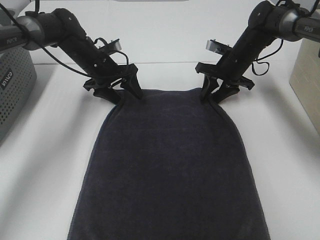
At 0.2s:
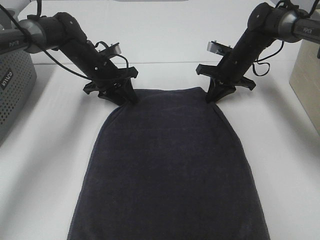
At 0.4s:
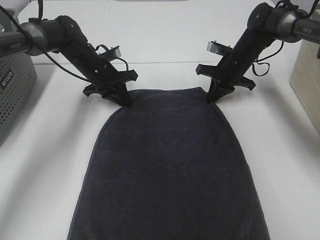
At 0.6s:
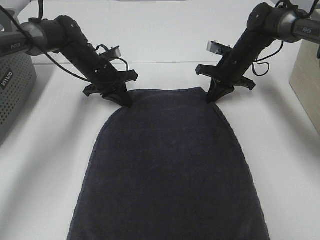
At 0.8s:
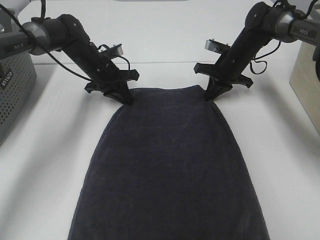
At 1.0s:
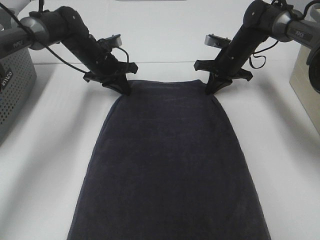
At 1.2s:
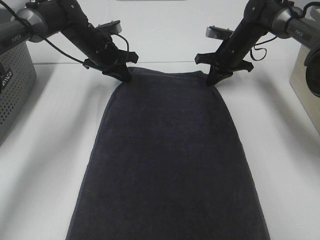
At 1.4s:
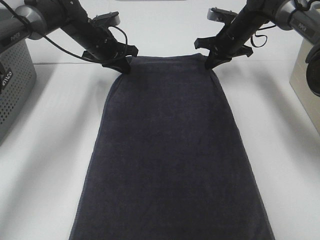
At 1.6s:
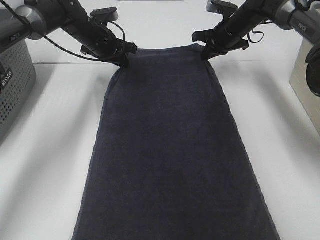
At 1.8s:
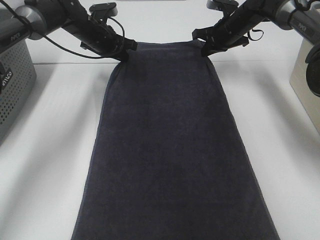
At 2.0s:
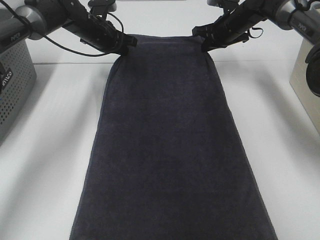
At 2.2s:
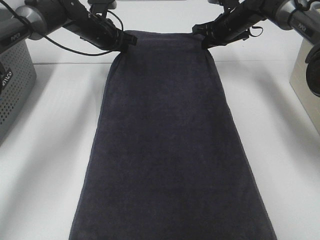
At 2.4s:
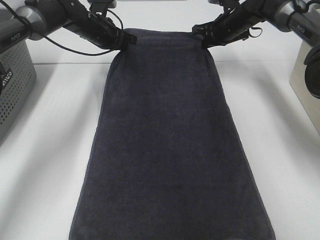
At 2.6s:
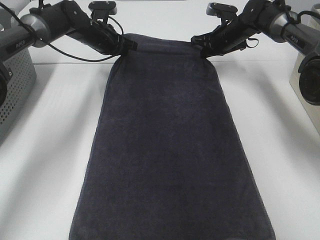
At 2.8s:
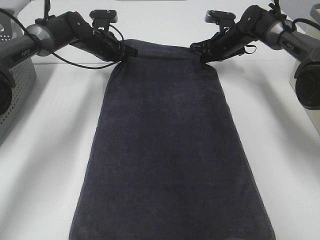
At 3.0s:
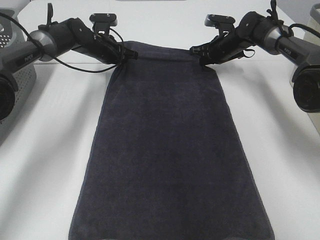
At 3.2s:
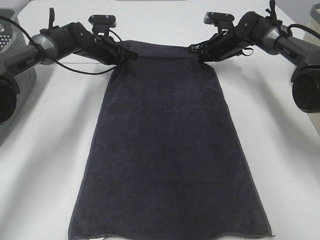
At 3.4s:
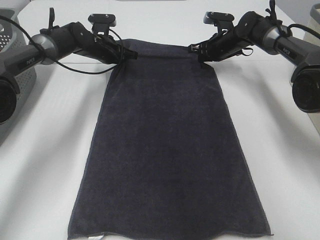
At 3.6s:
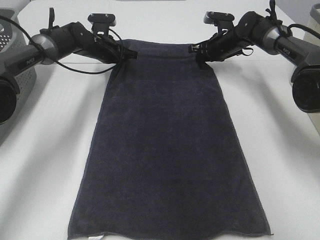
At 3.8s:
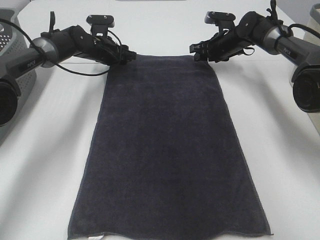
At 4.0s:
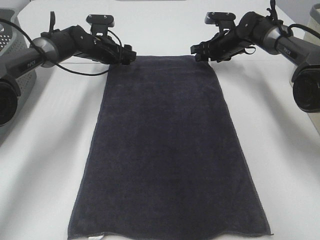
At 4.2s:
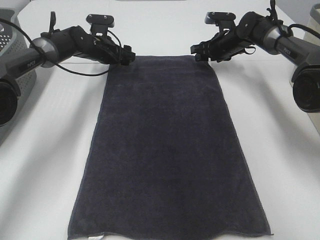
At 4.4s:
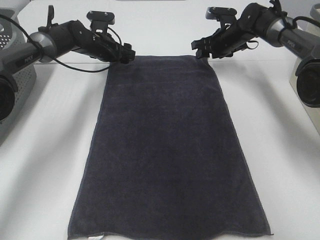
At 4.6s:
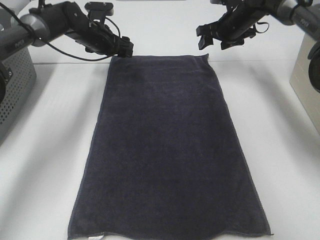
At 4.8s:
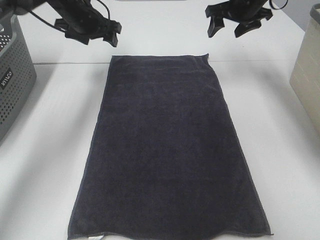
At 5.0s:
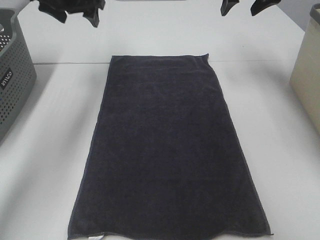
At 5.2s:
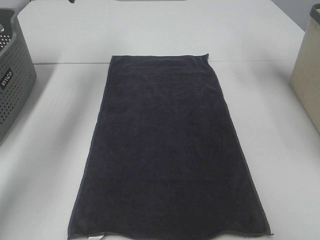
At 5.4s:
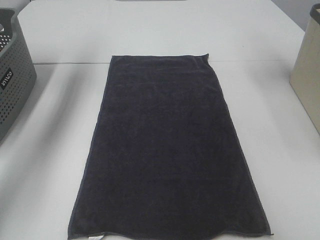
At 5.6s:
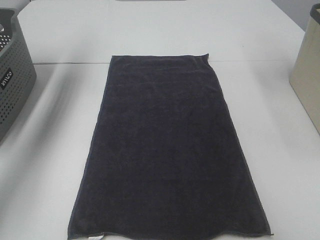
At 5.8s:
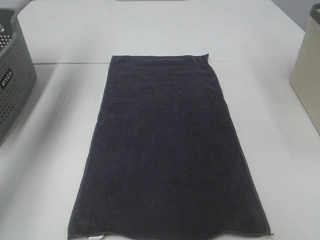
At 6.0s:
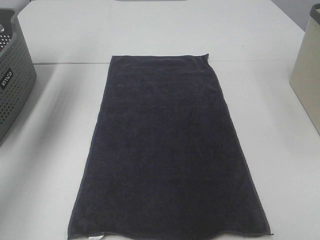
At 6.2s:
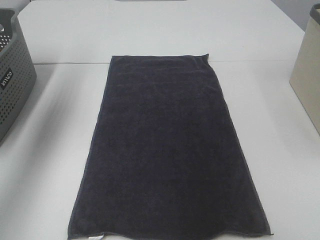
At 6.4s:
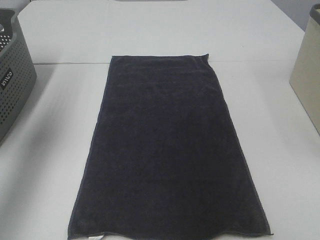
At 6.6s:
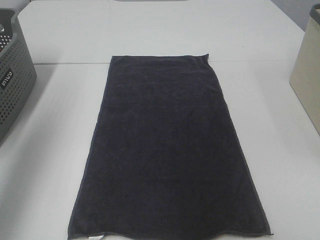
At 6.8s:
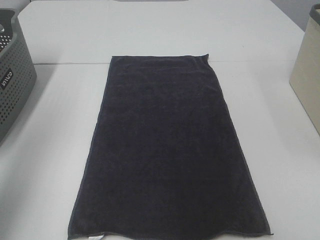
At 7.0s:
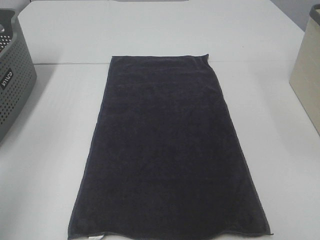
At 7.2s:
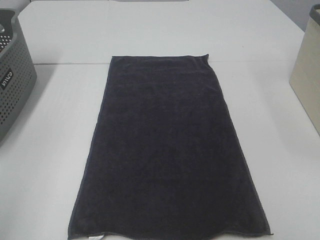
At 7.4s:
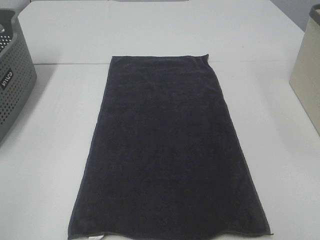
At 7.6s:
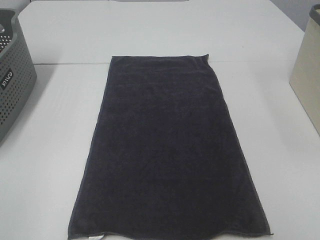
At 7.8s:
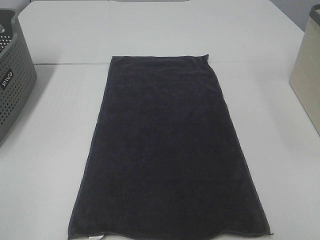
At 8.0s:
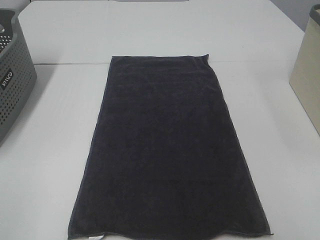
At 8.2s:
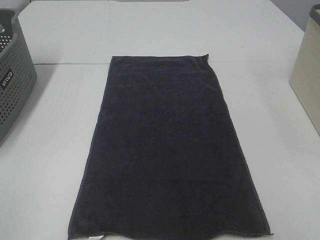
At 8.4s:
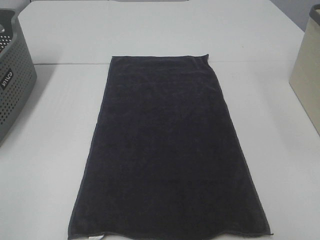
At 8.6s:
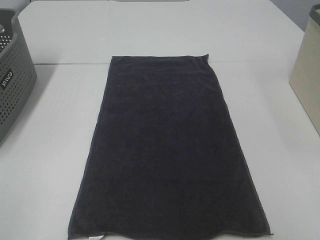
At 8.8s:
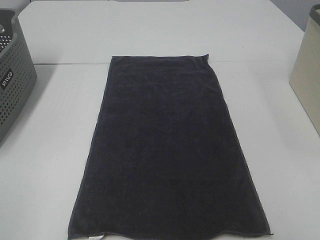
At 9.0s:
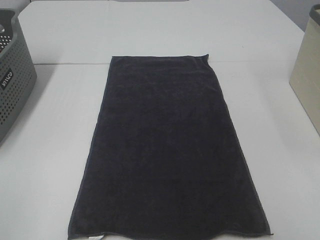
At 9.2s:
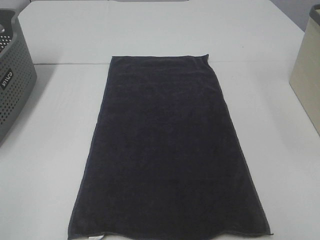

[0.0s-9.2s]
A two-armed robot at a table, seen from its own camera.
Task of the whole recording: Remove the towel and place it.
0.0s to 1.6s: The left gripper ends up approximately 5 cm from where it was, and closes its fingers. Meanwhile the right gripper goes roughly 10 cm upward and forward, and closes its fingers.
1.6s to 3.0s: The left gripper moves roughly 5 cm. The right gripper heads downward, covering about 5 cm.
3.0s to 4.6s: The left gripper opens its fingers, while the right gripper travels upward by approximately 5 cm, and opens up.
4.6s to 6.2s: The right gripper moves backward and upward, approximately 40 cm. Meanwhile the left gripper heads upward, backward and to the left, covering some 35 cm.
6.2s to 7.6s: The left gripper travels backward by approximately 40 cm.

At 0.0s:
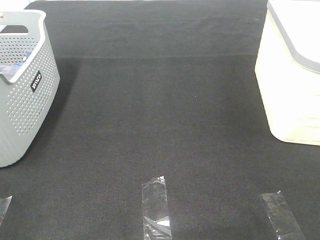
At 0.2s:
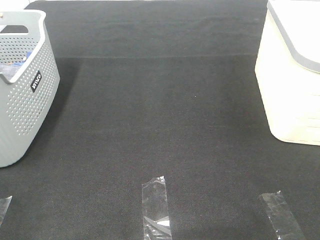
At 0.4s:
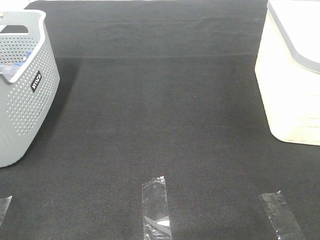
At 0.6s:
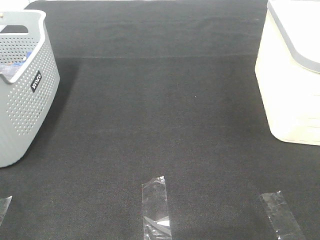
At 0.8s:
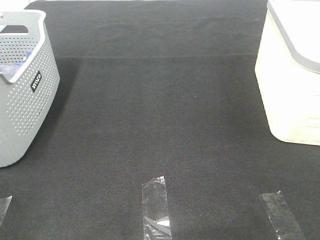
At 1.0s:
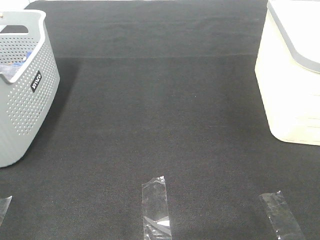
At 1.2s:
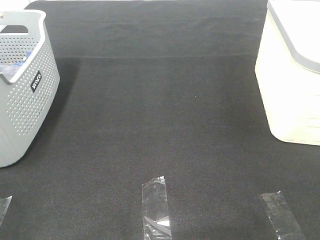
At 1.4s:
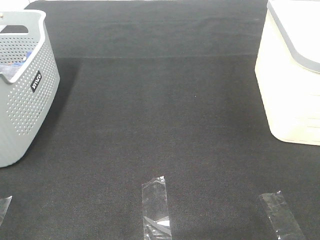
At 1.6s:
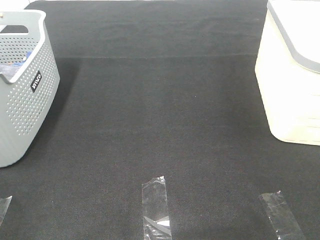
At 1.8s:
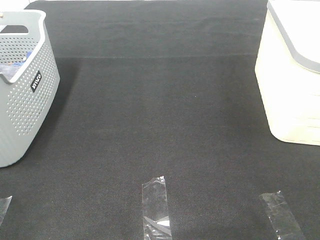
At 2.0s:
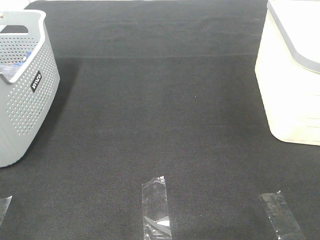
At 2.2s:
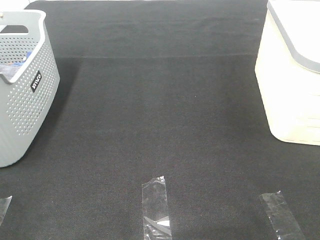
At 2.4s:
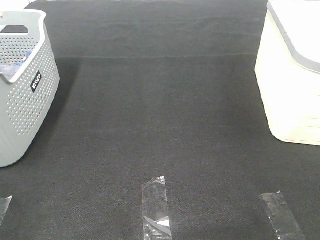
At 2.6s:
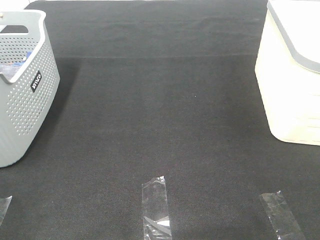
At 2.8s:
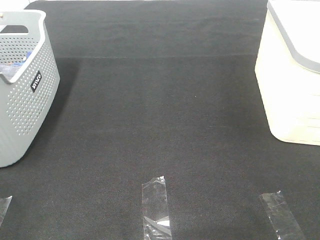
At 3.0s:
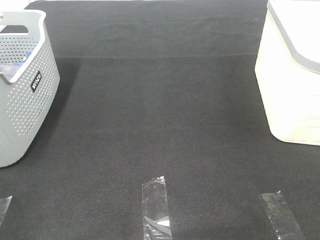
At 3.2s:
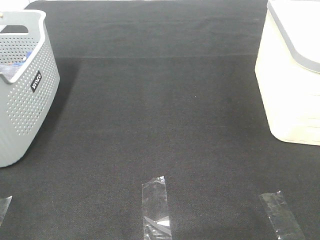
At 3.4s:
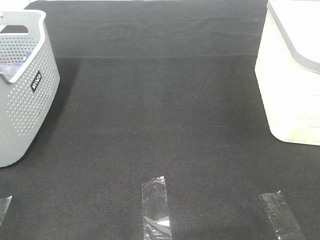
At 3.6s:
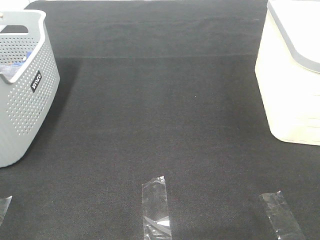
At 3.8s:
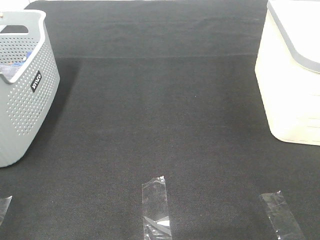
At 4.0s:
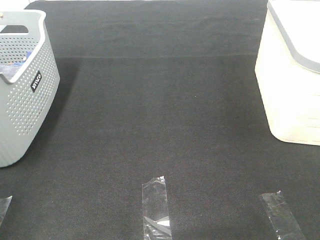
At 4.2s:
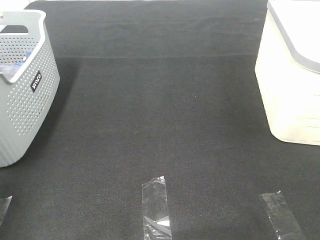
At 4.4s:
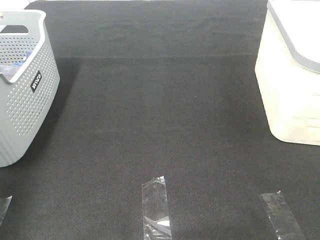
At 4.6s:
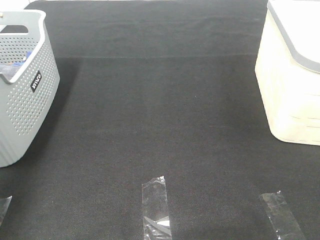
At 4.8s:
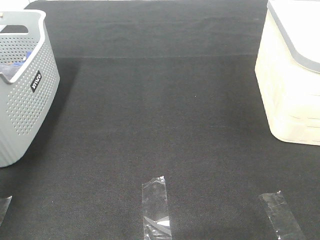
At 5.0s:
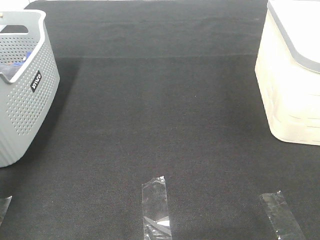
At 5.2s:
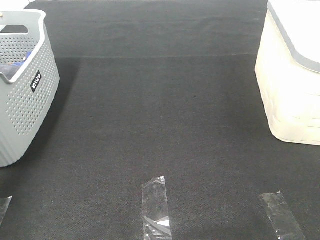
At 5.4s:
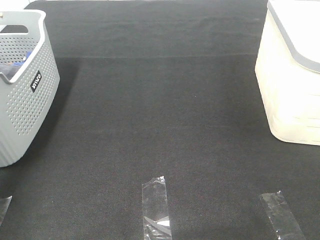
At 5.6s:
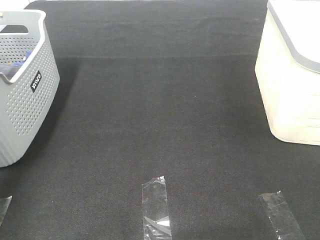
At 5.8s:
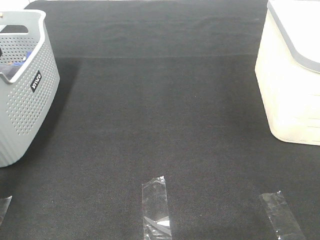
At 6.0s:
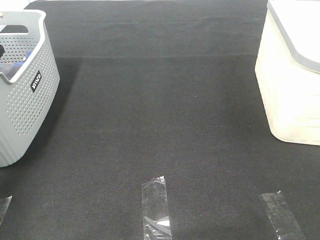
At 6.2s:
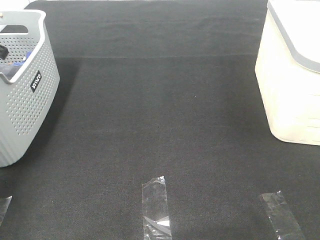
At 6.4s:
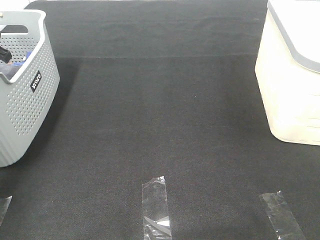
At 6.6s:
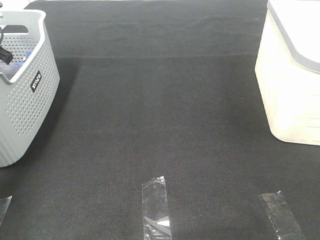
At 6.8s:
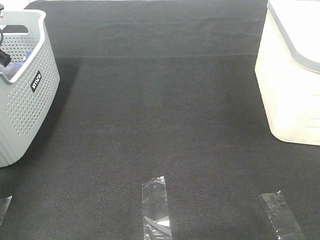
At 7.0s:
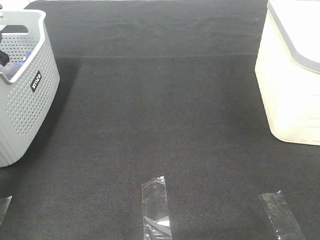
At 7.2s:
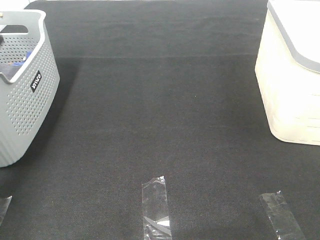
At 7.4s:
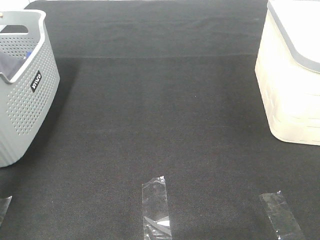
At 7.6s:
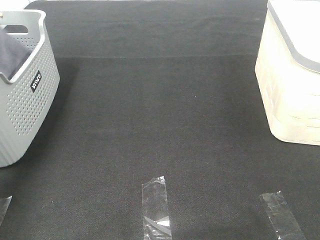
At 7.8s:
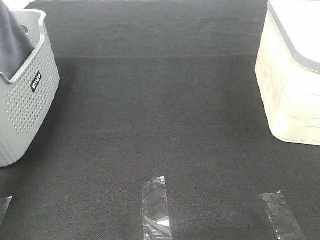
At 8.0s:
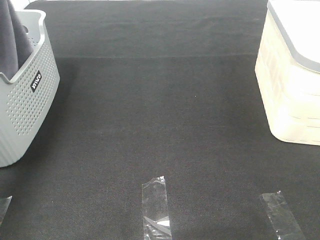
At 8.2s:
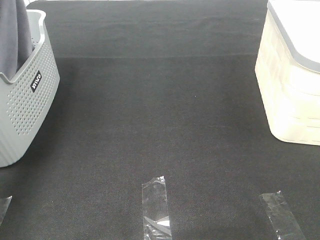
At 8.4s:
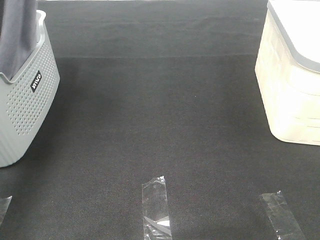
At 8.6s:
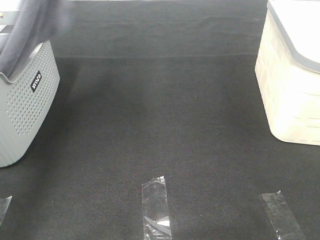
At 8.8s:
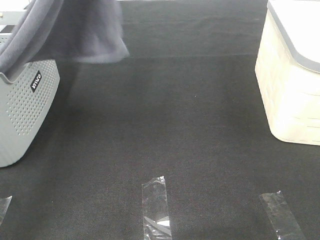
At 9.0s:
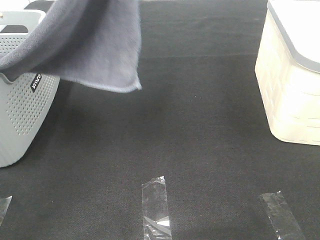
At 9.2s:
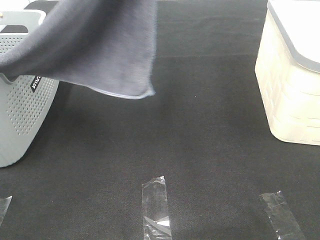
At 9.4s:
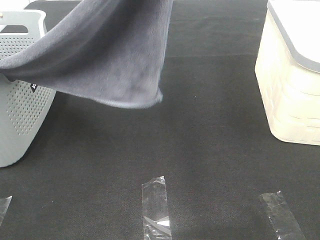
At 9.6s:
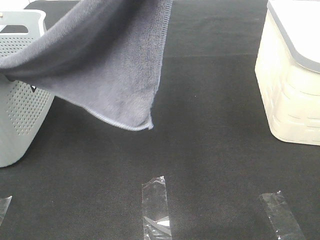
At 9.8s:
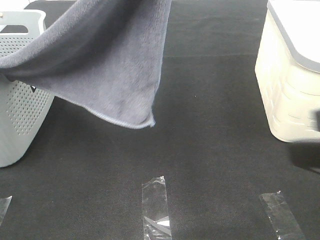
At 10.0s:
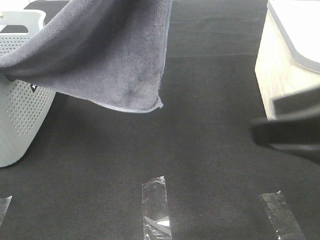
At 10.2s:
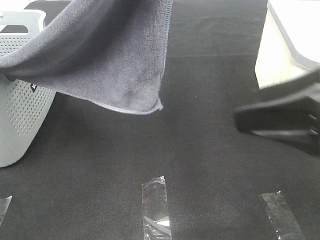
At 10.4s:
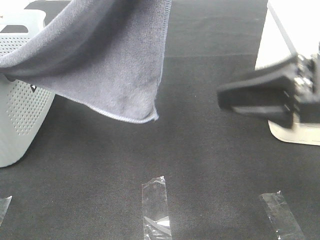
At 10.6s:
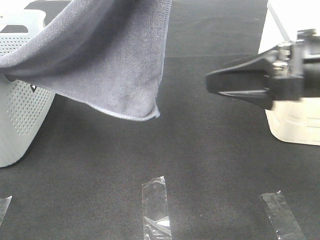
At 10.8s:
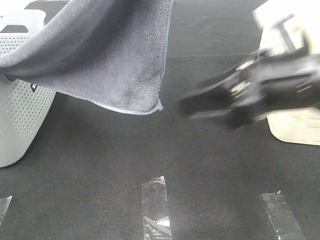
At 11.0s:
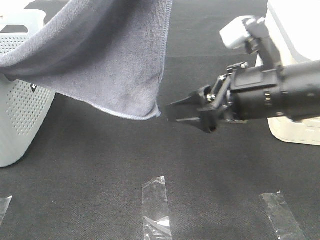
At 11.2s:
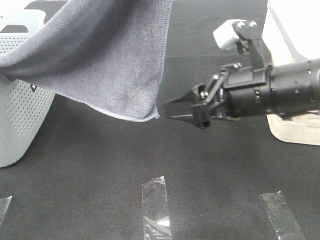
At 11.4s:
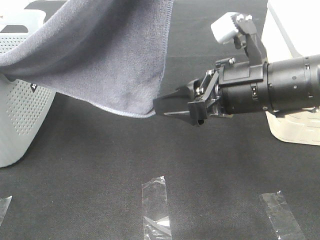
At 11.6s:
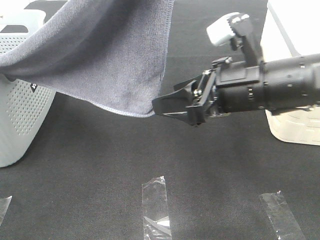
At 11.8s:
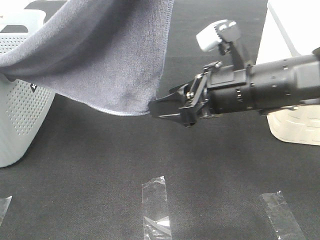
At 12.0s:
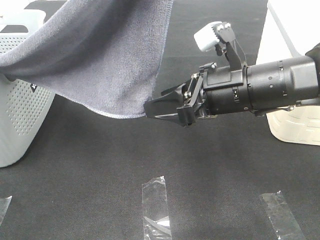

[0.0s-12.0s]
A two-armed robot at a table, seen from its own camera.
Task of the whole recording: Remove the towel and place it.
0.0s to 3.0s: Neither gripper changes place.
3.0s to 4.4s: The left gripper travels forward and upward by some 20 cm.
6.0s to 7.6s: The left gripper is displaced upward by approximately 10 cm, and closes up.
7.6s to 9.0s: The left gripper goes about 25 cm to the right, upward and backward.
9.0s to 10.4s: The right gripper moves forward and to the left, about 20 cm. Meanwhile the left gripper moves about 5 cm.
10.4s to 12.0s: The right gripper travels to the left, downward and forward by some 15 cm.

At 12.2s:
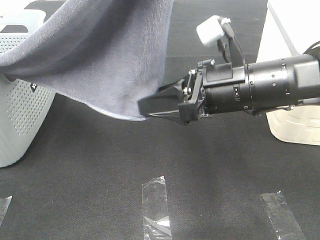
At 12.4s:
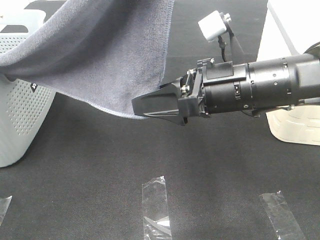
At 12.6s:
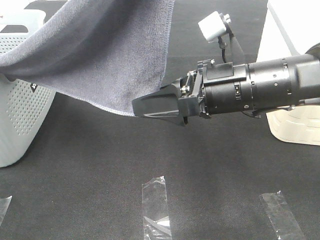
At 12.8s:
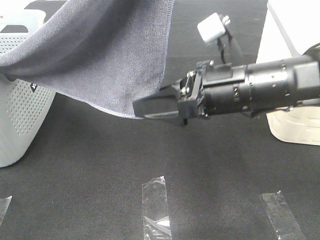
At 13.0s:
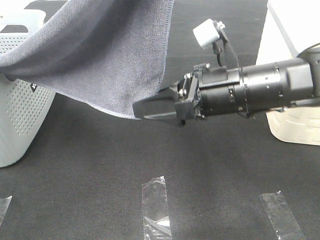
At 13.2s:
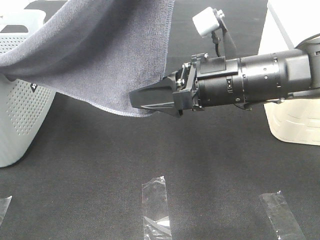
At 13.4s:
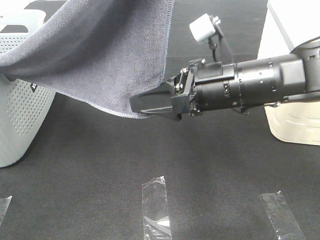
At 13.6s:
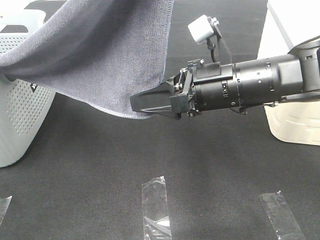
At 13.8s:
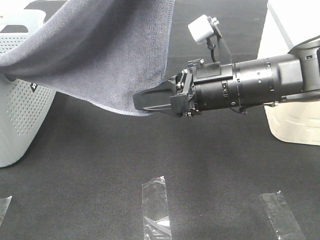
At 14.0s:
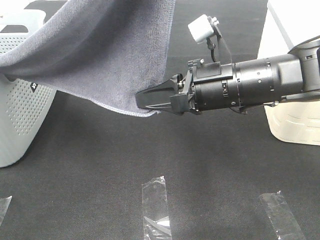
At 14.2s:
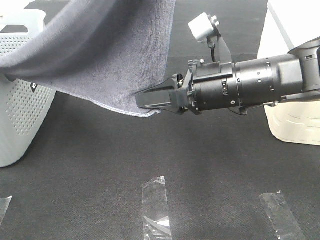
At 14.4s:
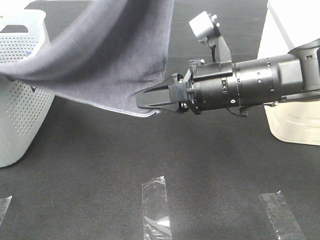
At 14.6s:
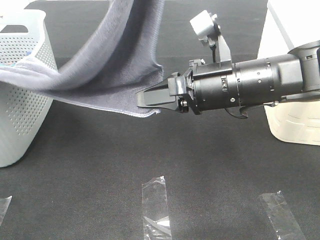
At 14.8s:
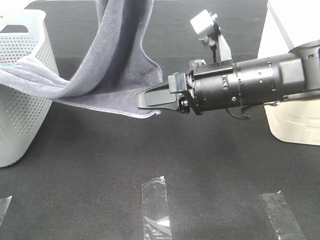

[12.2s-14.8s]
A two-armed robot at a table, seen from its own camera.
Task of the whole recording: Remove the towel and place it.
12.2s to 13.4s: The grippers stay close to where they were, moving slightly.
13.4s to 14.8s: The right gripper closes up.
